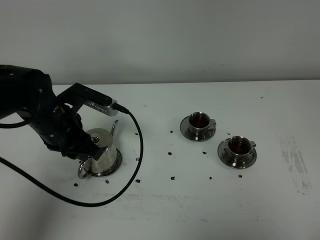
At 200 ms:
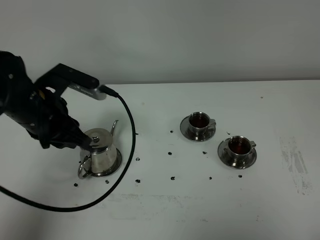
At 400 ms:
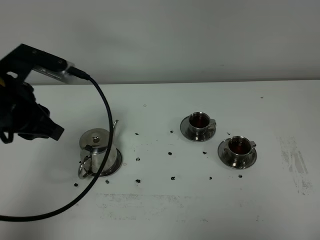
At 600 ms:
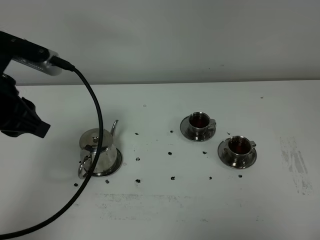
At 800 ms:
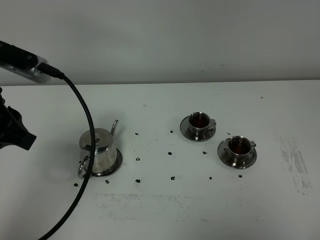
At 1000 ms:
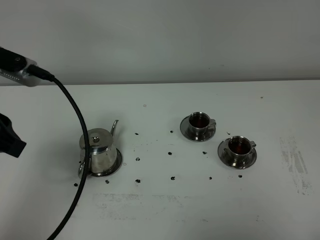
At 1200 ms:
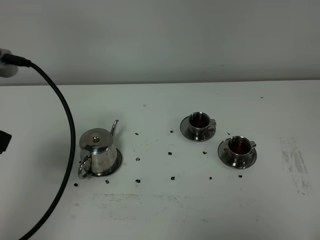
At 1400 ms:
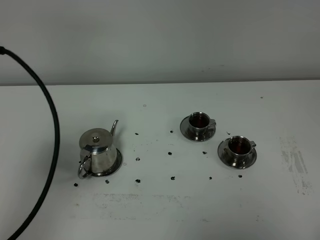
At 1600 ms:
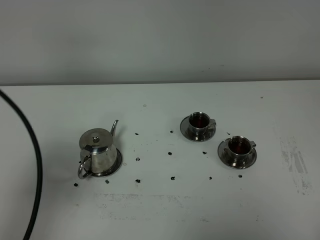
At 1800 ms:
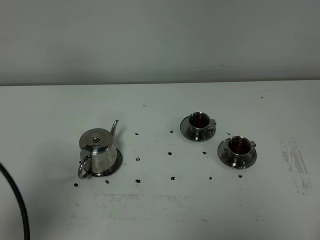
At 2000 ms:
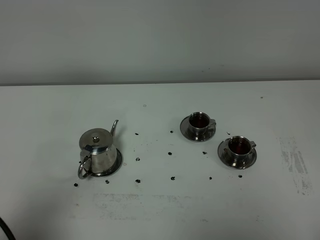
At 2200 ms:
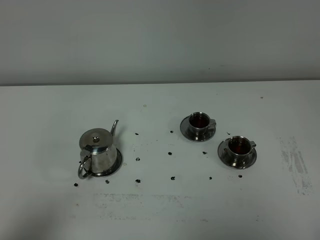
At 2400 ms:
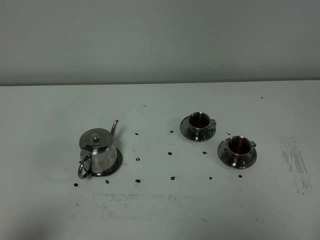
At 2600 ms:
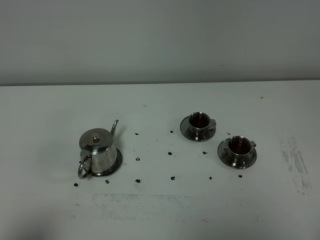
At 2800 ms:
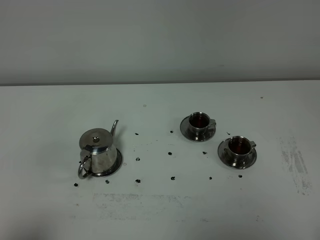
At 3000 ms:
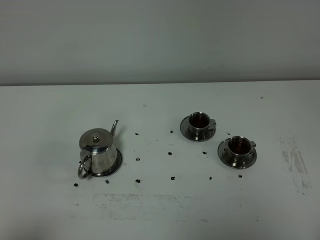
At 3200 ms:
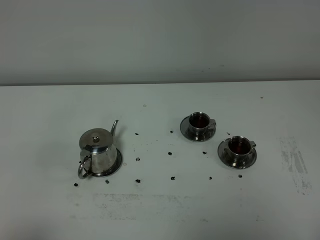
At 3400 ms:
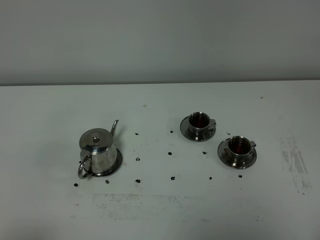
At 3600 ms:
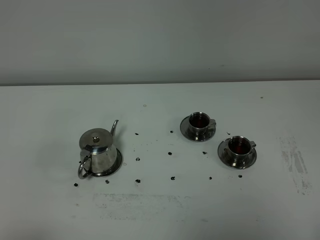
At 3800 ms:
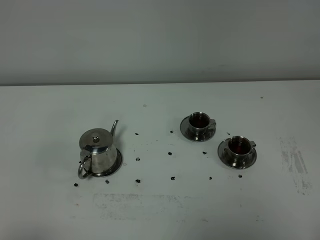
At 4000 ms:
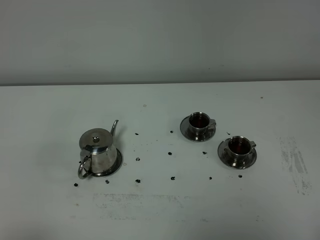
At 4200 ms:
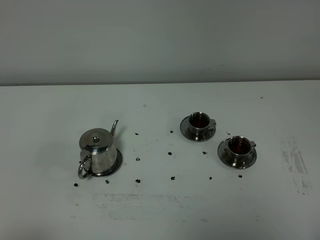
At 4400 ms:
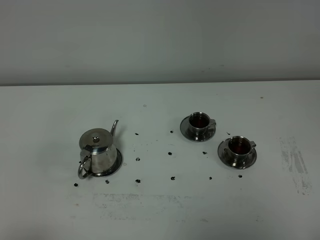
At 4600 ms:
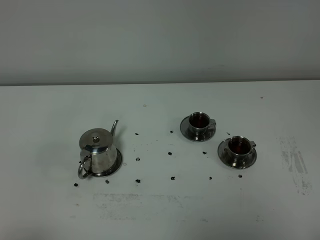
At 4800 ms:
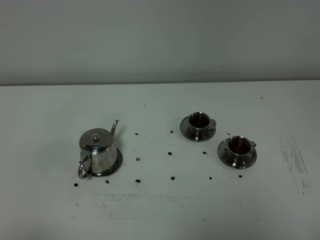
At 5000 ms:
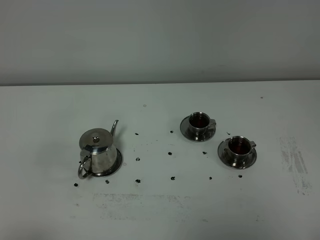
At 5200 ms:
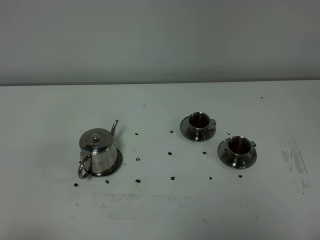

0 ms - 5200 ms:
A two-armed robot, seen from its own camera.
Task of the whole recording: grasp the stainless steel teapot and pour the tea into the two stainless steel teacups one by one, put the stainless steel teapot back in its original place.
0 ms - 1800 ms: The left gripper heads backward and upward, covering roughly 25 cm.
1800 ms - 3400 ms: The left gripper travels backward and downward by roughly 15 cm.
3400 ms - 5200 ms: Both grippers stay put.
